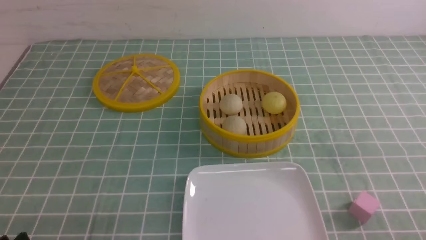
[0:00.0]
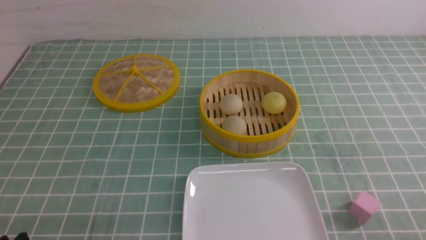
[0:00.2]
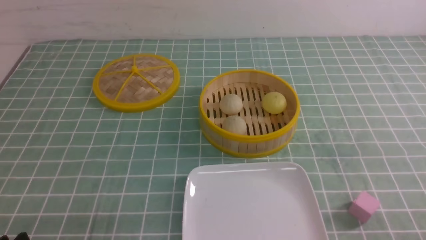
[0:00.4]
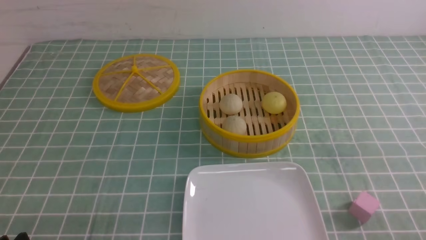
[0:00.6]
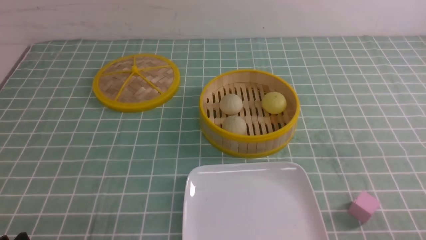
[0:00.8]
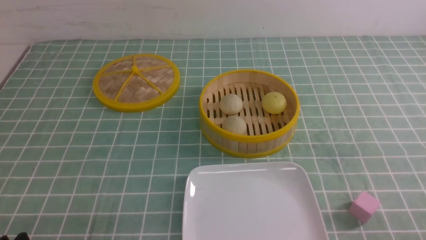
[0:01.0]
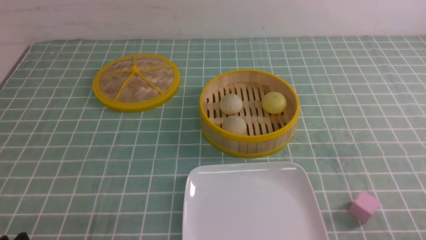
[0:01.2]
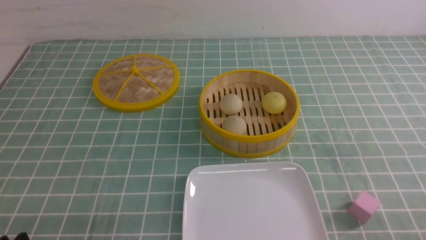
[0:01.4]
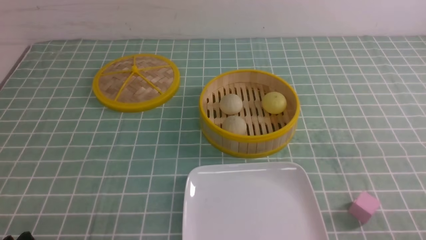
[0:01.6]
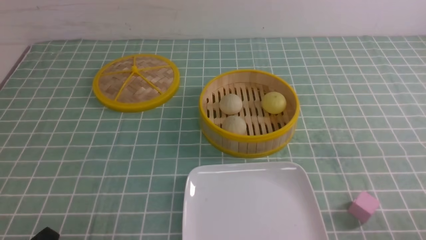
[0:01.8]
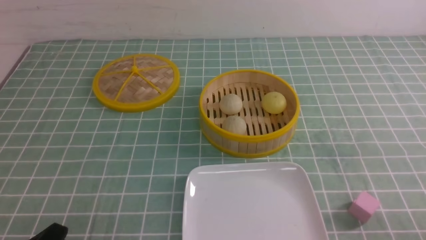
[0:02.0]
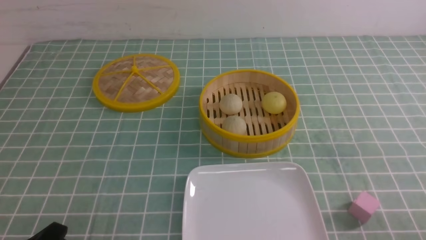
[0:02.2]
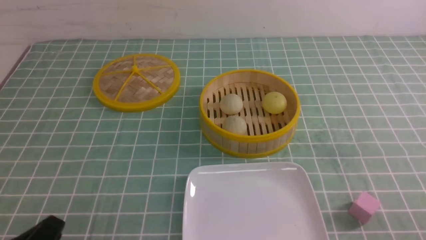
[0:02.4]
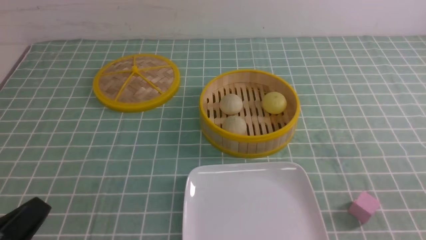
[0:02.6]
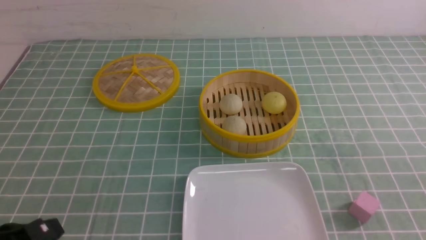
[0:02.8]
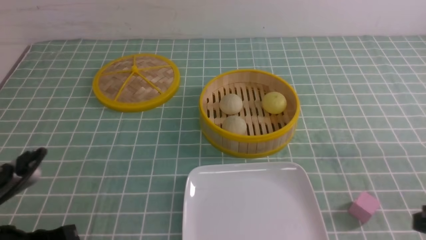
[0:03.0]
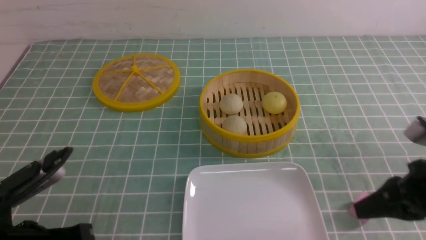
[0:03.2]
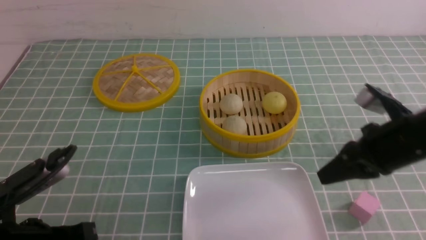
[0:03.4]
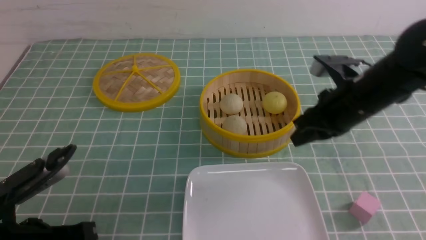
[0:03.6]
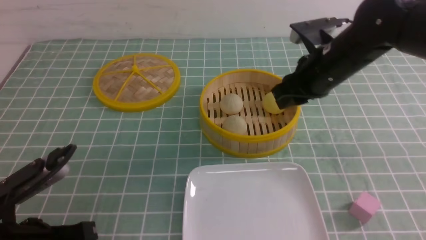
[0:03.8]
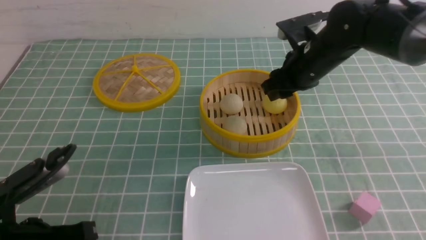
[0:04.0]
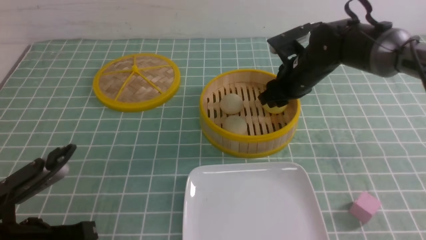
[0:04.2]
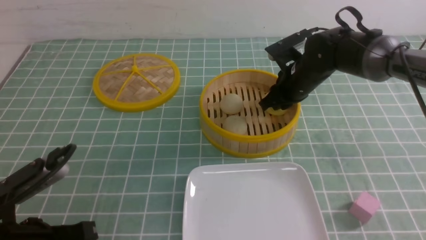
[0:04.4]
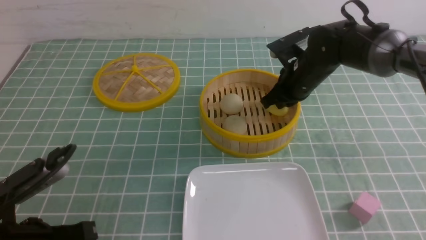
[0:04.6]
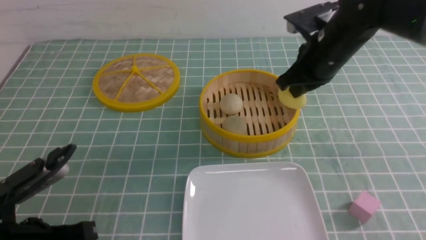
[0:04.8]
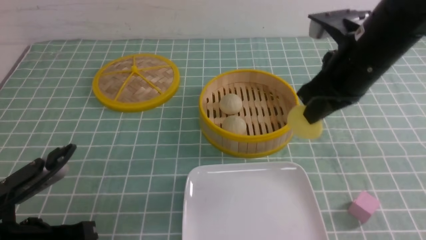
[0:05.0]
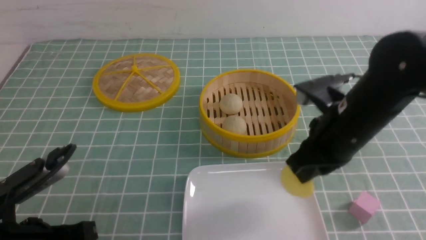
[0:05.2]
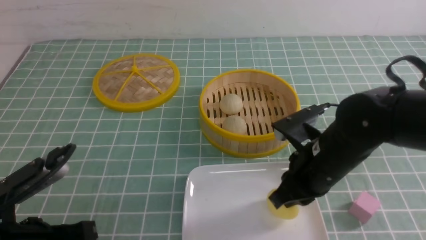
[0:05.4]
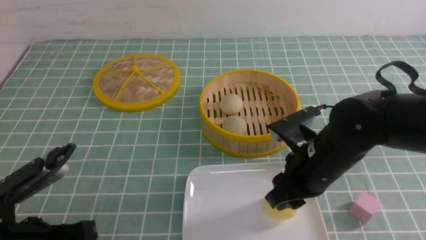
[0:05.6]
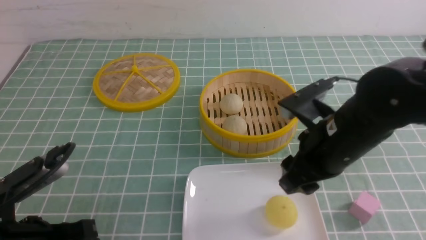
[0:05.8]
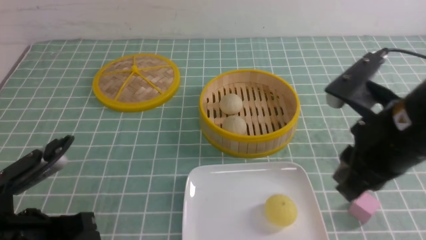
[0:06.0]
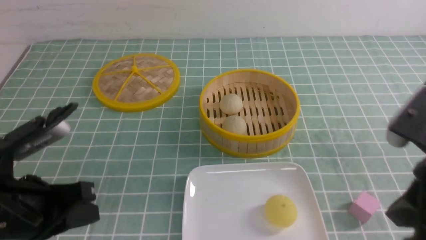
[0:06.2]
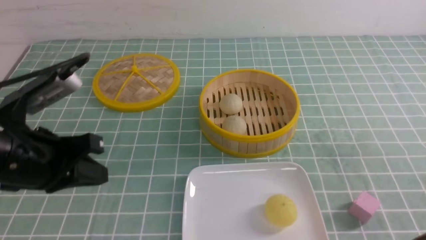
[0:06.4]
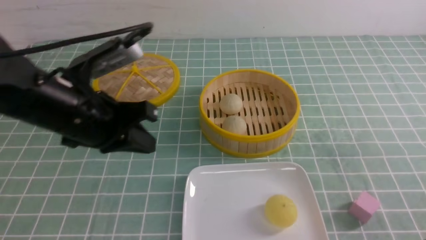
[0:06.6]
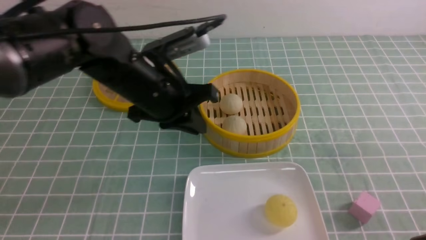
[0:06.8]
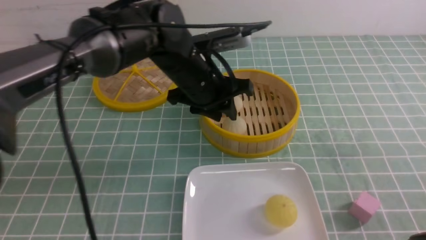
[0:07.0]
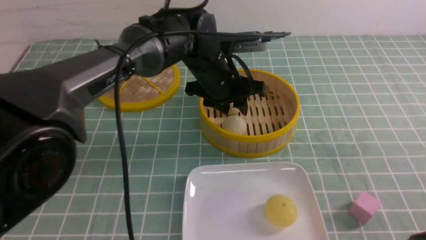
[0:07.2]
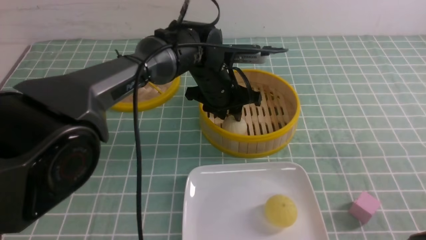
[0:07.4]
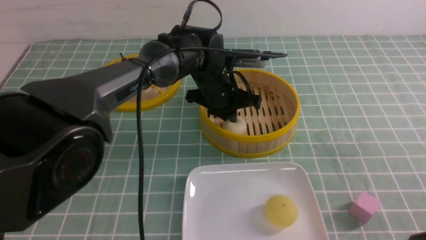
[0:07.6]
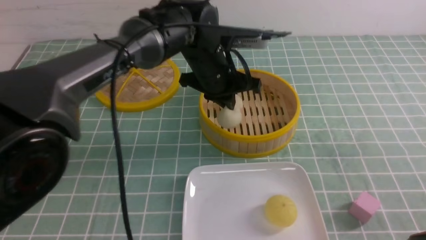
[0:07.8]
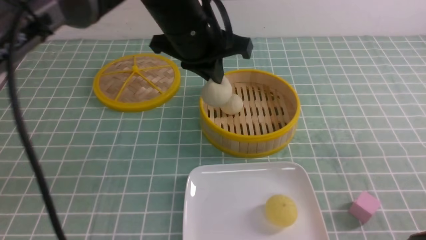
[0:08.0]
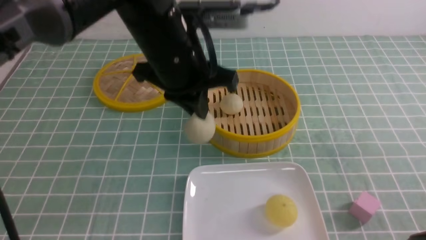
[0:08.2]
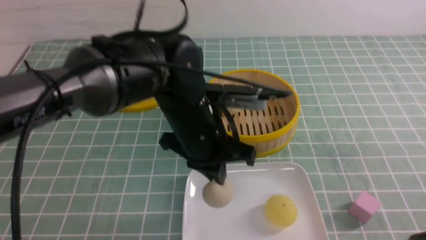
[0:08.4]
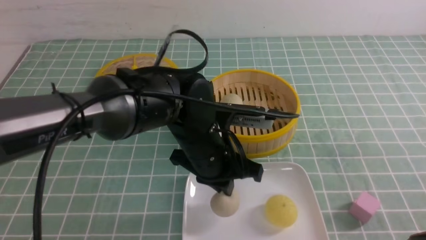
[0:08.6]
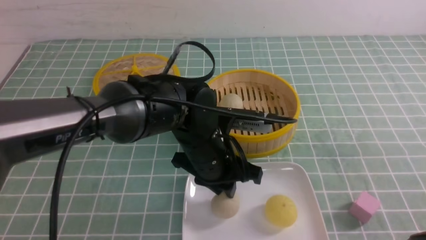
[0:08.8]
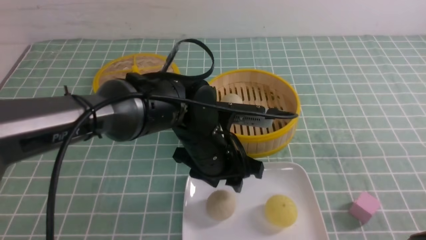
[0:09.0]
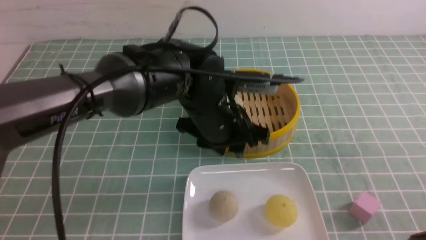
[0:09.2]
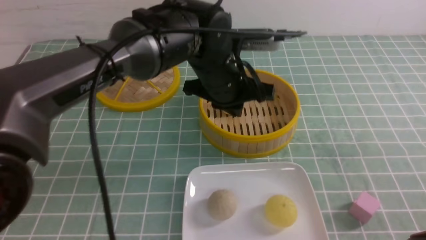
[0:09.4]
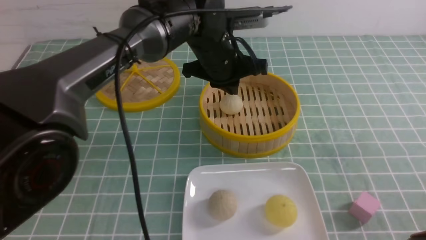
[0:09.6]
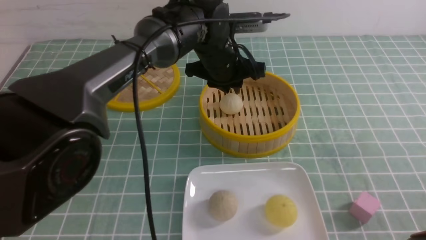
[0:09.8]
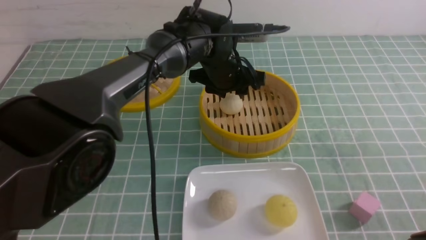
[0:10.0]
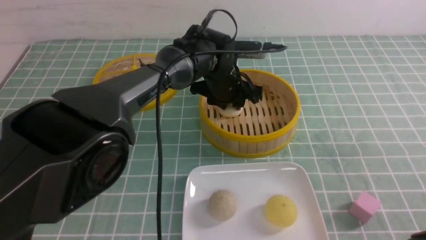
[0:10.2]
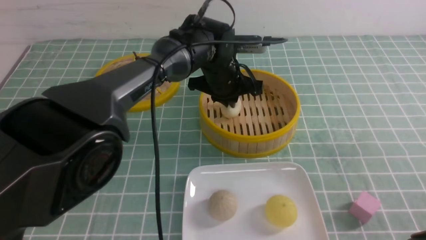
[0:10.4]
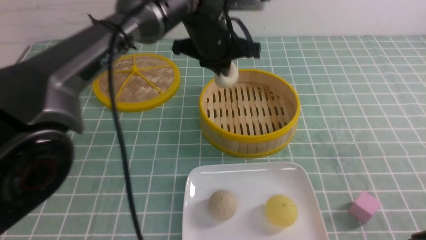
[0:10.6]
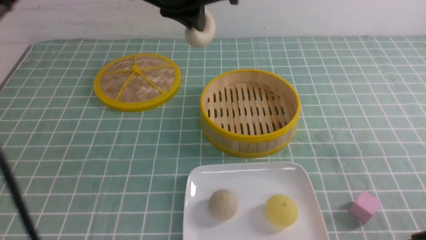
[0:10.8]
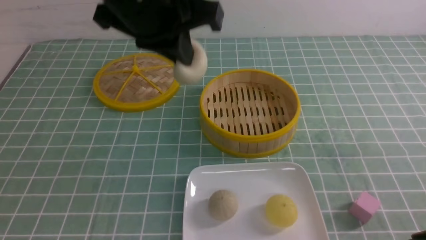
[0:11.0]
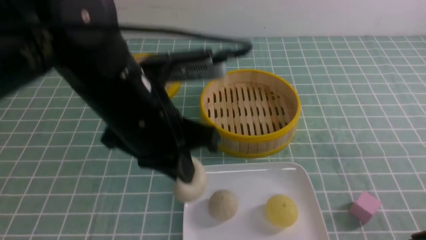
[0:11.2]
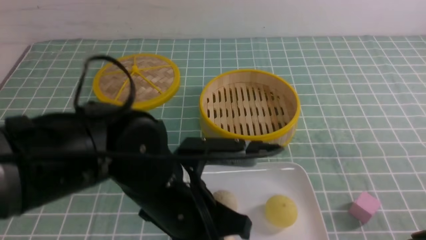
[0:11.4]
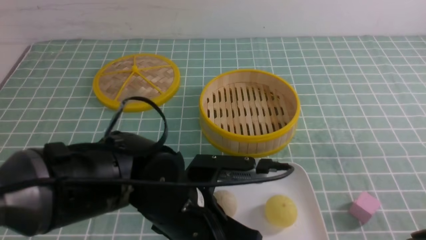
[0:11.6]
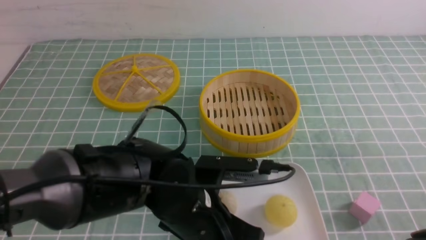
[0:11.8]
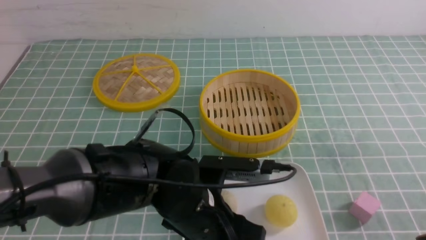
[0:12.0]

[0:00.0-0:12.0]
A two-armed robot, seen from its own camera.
Step, 0:00.0 to 0:04.6: use the right arm to grab the steamed stuffed bun that is closest to it.
Step, 0:04.8 to 0:05.6: use the right arm to put the steamed stuffed bun into the plate.
Step, 0:06.0 to 0:07.6: use the left arm to grab the steamed stuffed bun that is closest to it.
Step, 0:07.8 to 0:08.8: use the left arm to put the steamed stuffed bun into the plate.
Step, 0:09.0 to 0:10.2: use the left arm to grab the steamed stuffed bun that is closest to it.
Step, 0:10.4 to 0:12.0: use the left arm to put the steamed stuffed bun into the plate.
0:01.6 to 0:03.0: The left gripper goes some 5 cm upward, and closes.
0:03.0 to 0:04.4: The right gripper goes roughly 35 cm forward and to the left, and opens.
0:04.4 to 0:06.0: The right gripper moves backward, roughly 25 cm, and closes, then reopens.
0:06.0 to 0:07.6: The left gripper heads forward and to the right, covering about 35 cm, and opens and closes again. Meanwhile the right gripper moves backward and to the right, roughly 15 cm, and closes up.
0:07.6 to 0:09.0: The left gripper is displaced backward by roughly 10 cm, and opens.
0:09.0 to 0:10.4: The left gripper moves forward, roughly 15 cm, and closes.
0:10.4 to 0:12.0: The left gripper goes some 25 cm backward, and opens up.

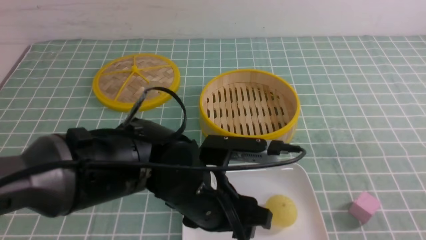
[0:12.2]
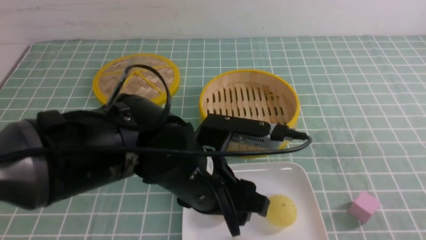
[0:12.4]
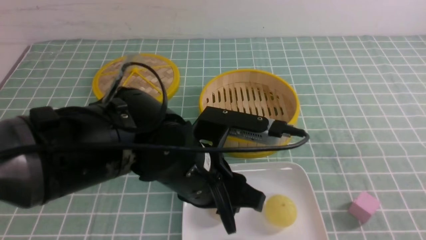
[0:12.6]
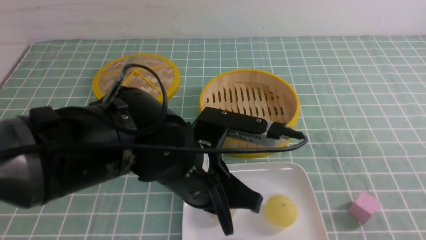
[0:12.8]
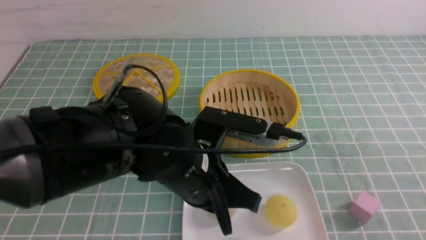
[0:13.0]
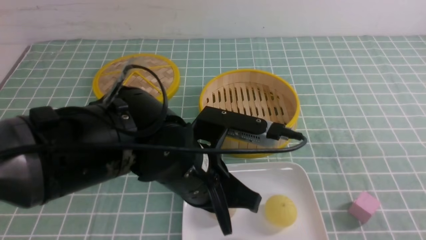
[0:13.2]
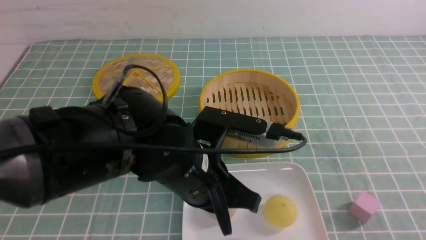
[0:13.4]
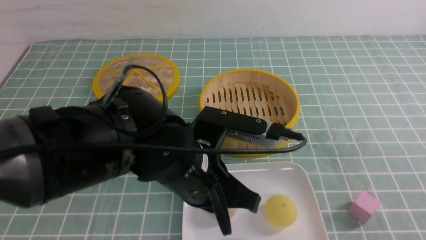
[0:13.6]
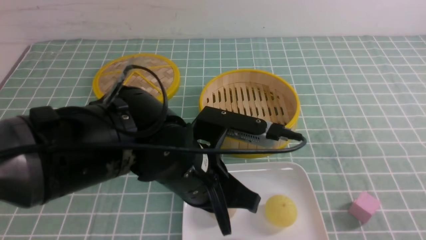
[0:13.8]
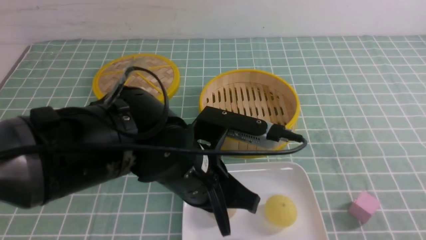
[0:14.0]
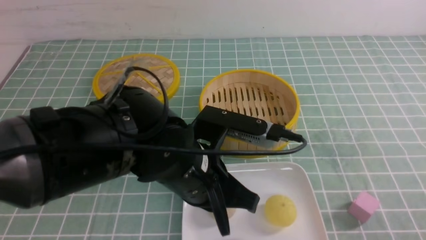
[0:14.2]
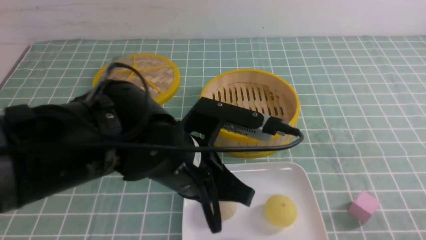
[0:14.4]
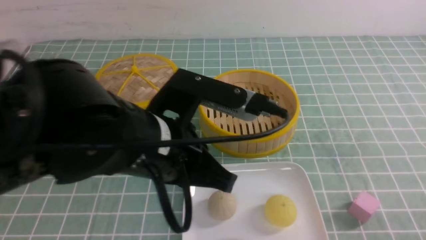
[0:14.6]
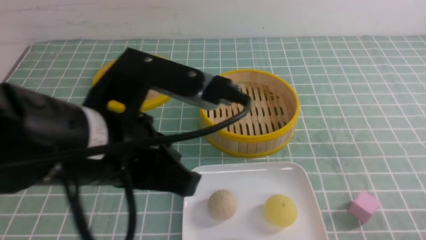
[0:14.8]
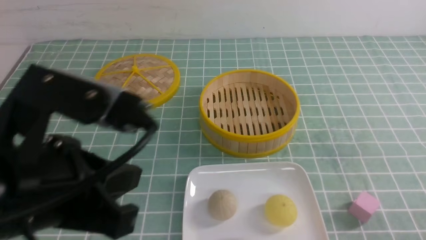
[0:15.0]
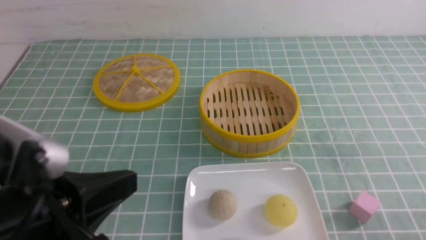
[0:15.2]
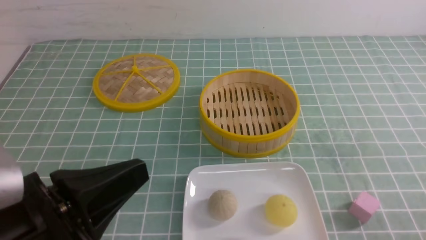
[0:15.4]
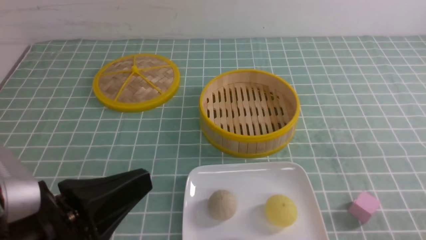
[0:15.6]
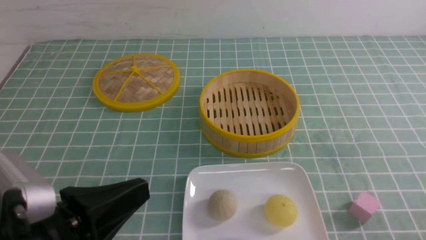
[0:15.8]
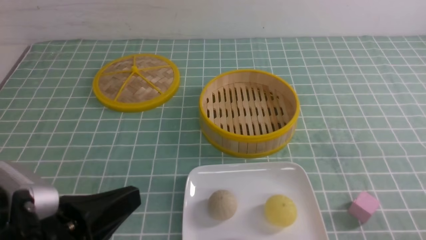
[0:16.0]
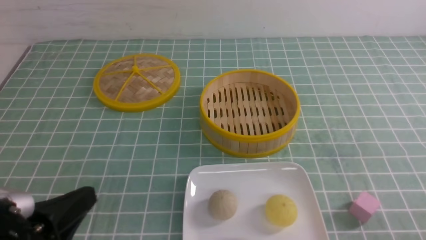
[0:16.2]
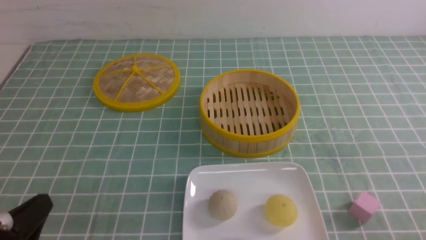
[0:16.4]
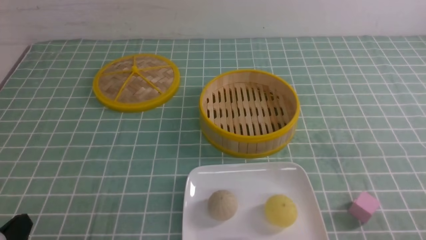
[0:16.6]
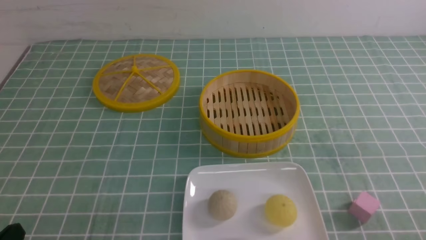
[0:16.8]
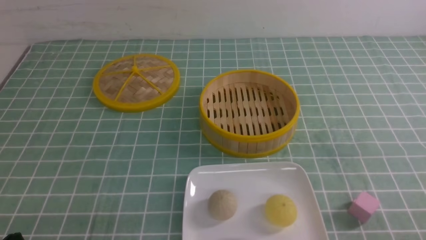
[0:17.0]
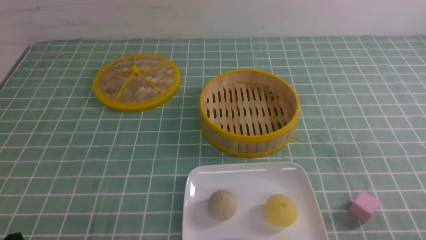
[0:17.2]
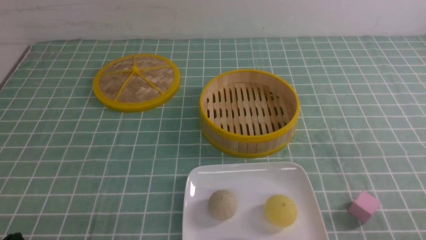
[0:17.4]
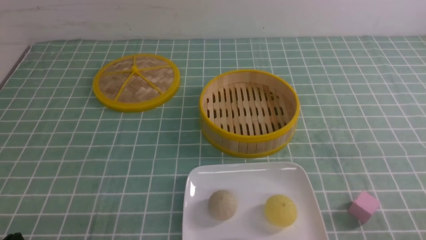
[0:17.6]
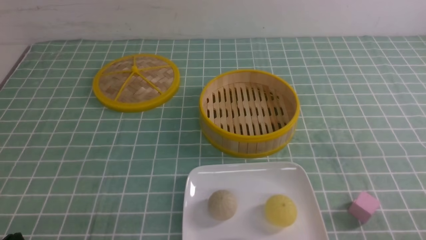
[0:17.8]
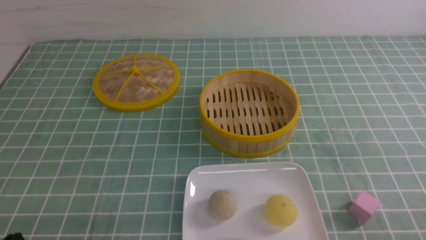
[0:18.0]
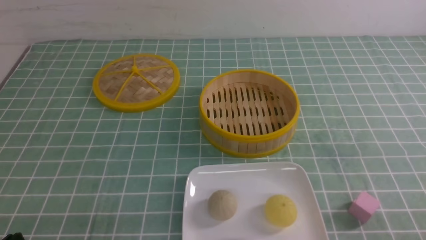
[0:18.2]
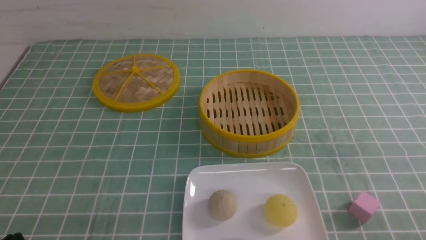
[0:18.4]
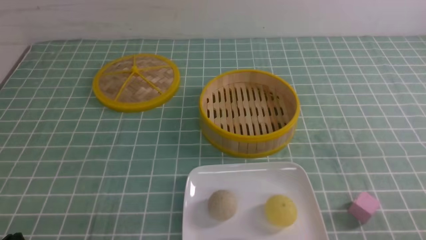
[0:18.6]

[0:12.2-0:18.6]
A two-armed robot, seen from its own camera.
0:12.2 to 0:13.8: The left gripper closes up.
0:13.8 to 0:15.4: The right gripper goes about 10 cm downward, while the left gripper shifts approximately 20 cm to the left and backward.
0:15.4 to 0:17.0: The left gripper heads downward and to the left, covering approximately 15 cm.
0:17.0 to 0:18.6: The two grippers keep their place.
